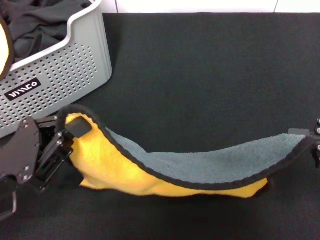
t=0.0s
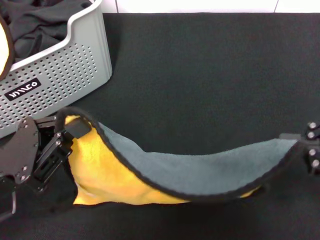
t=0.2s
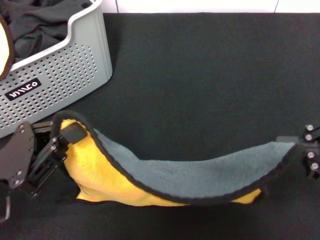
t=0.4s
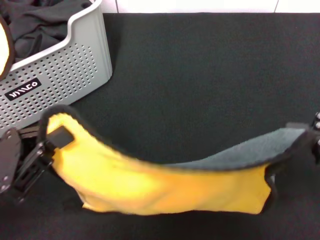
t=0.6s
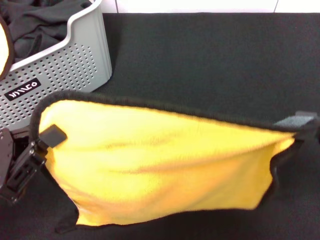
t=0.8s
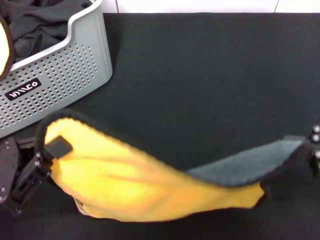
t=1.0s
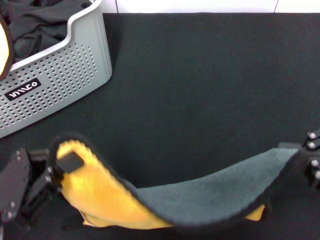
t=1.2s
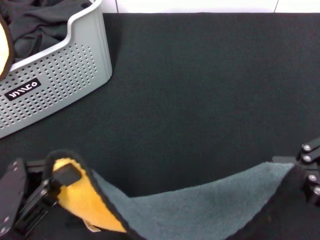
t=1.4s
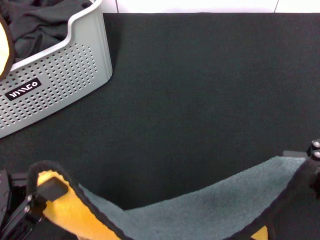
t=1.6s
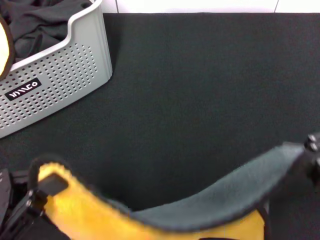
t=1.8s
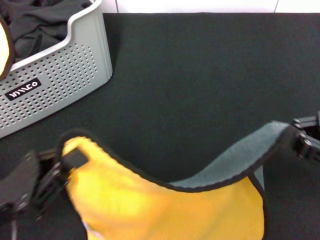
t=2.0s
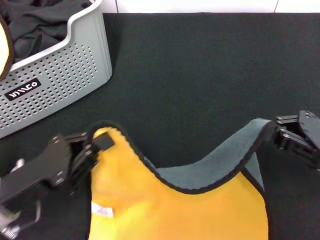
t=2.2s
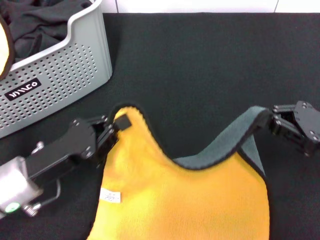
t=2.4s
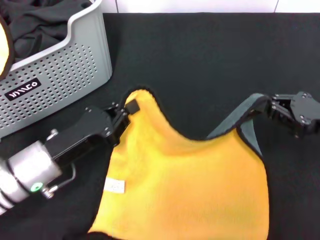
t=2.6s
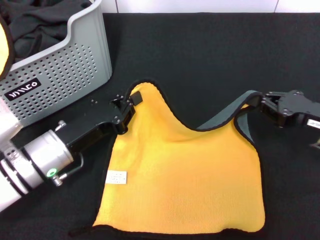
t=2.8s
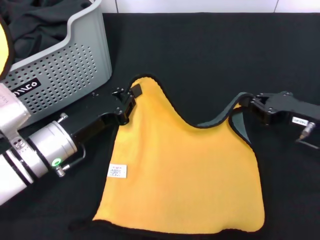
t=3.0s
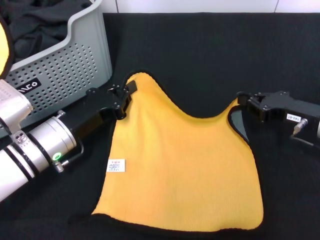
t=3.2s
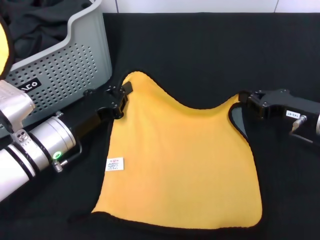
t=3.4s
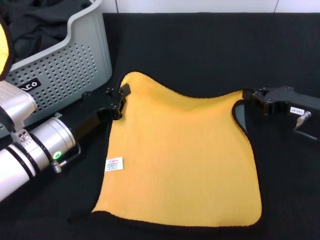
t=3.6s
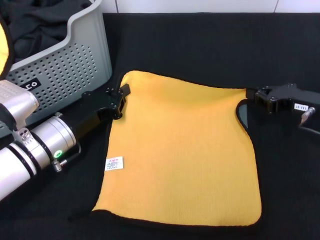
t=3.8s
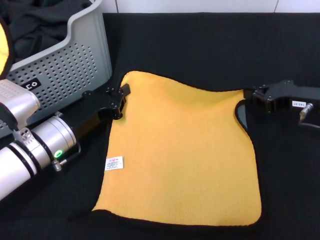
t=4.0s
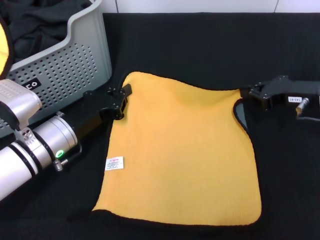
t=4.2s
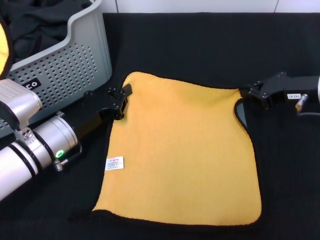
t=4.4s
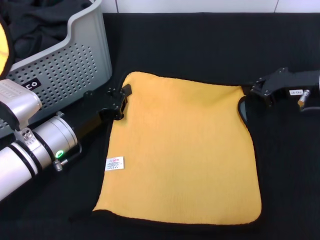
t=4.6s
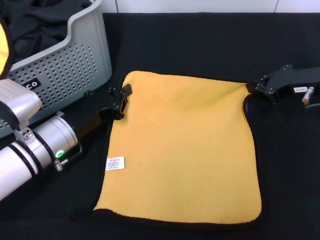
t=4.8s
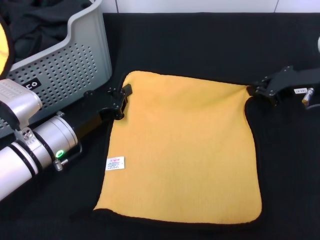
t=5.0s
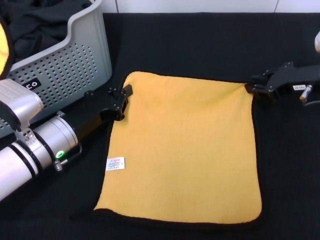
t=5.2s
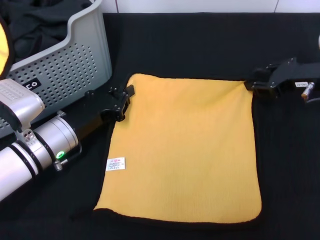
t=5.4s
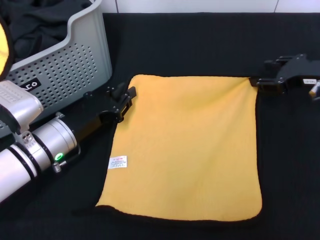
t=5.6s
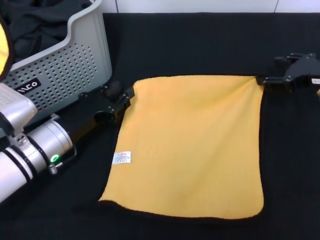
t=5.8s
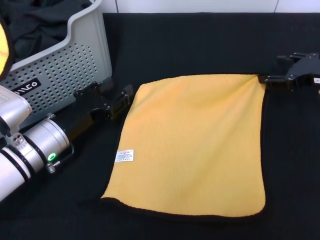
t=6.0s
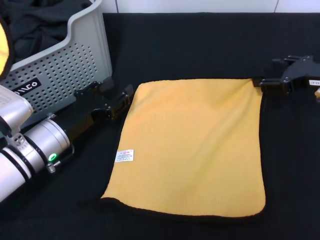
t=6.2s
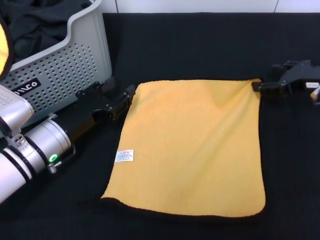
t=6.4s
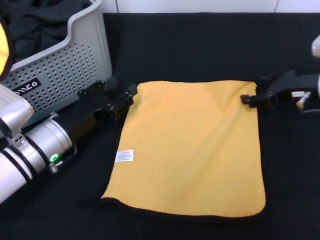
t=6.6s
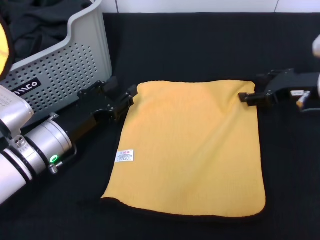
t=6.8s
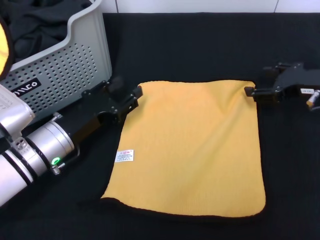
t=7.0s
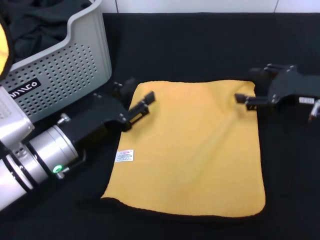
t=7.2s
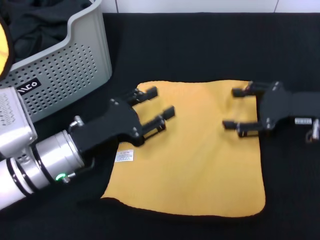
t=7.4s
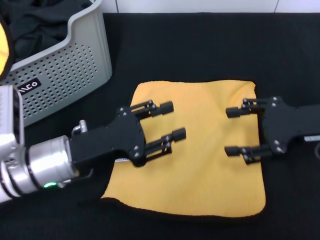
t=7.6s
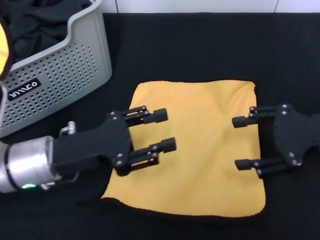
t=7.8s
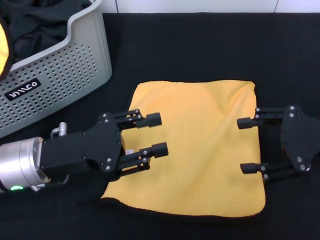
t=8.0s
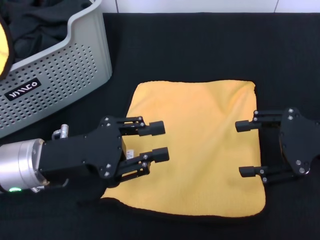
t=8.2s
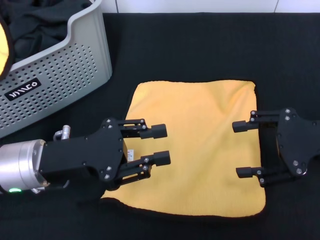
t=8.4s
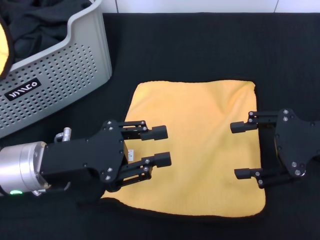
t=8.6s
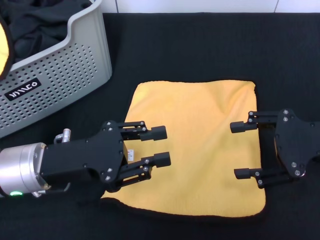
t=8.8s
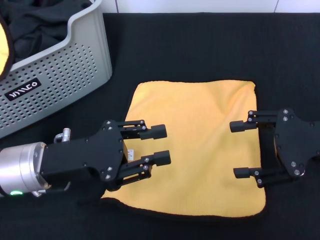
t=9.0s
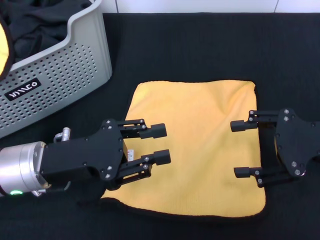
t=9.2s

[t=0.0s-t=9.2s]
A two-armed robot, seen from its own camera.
Task of the whole recording: pick up the towel from the storage box and lay it flat on the black tablecloth.
Step, t=0.0s to t=6.4s: Spread the towel flat with the right gripper.
t=0.0s to t=1.6s: The left gripper goes approximately 5 cm backward.
t=1.6s to t=3.0s: The right gripper moves downward and forward, approximately 20 cm. Meanwhile the left gripper goes some 20 cm forward, to the right and downward.
t=3.0s to t=4.6s: The right gripper shifts roughly 5 cm forward.
t=4.6s to t=6.2s: The left gripper opens. The right gripper opens.
t=6.2s to t=7.6s: The right gripper moves backward, some 5 cm, while the left gripper shifts by about 5 cm.
t=7.6s to t=9.2s: The grippers make only small movements.
